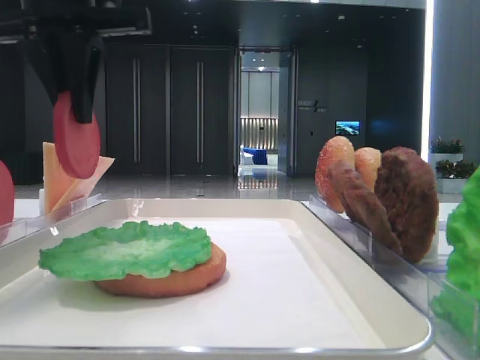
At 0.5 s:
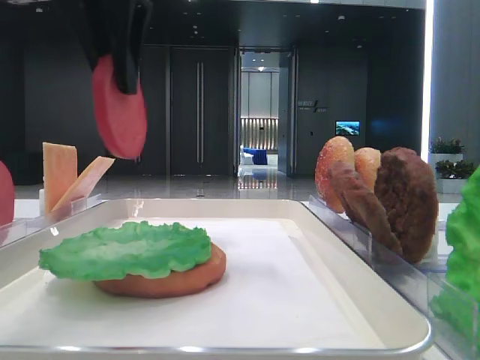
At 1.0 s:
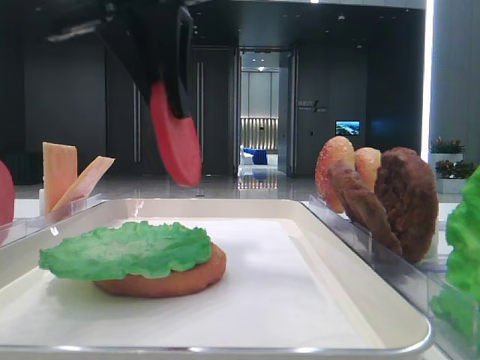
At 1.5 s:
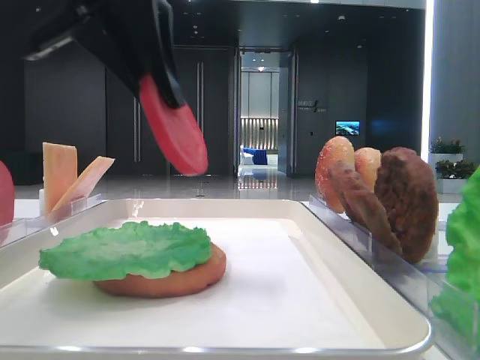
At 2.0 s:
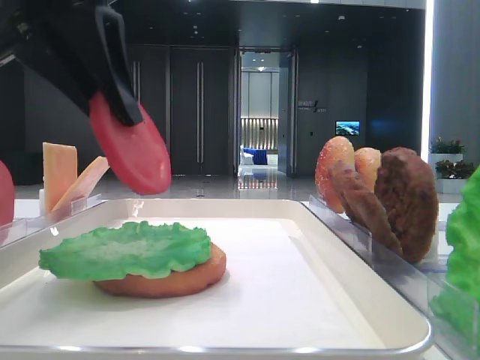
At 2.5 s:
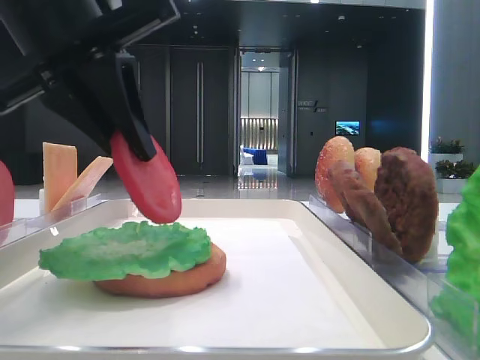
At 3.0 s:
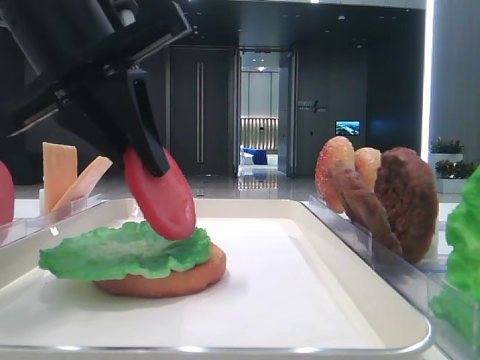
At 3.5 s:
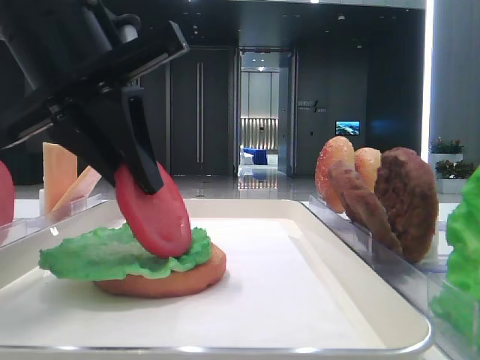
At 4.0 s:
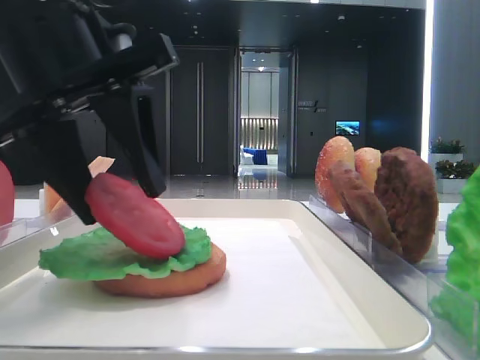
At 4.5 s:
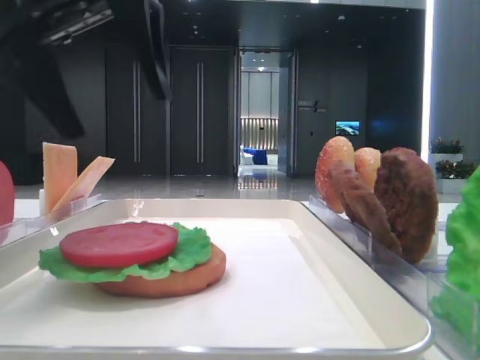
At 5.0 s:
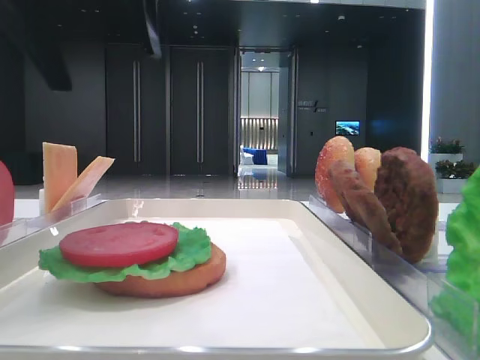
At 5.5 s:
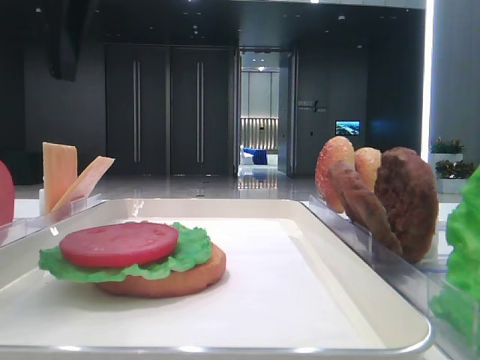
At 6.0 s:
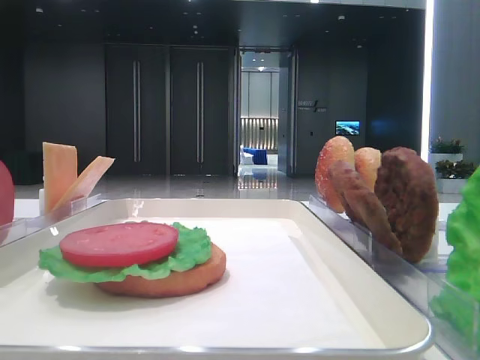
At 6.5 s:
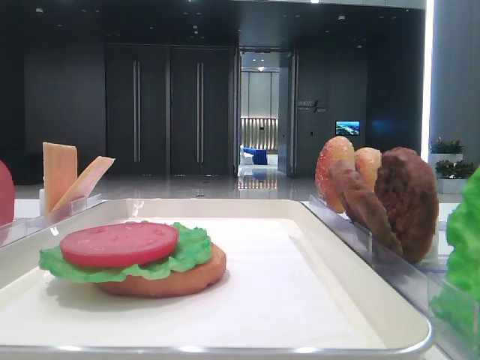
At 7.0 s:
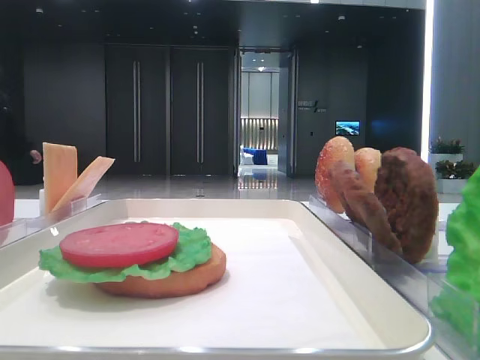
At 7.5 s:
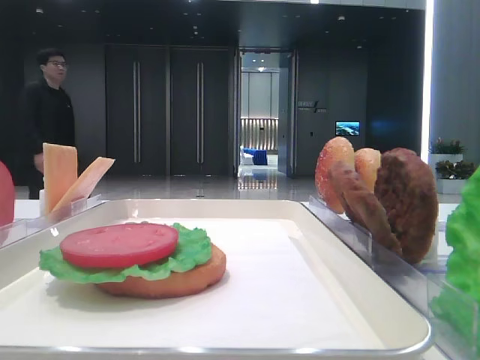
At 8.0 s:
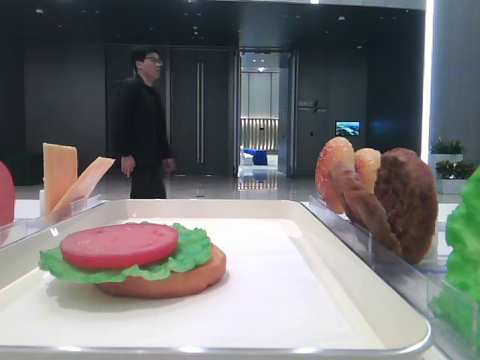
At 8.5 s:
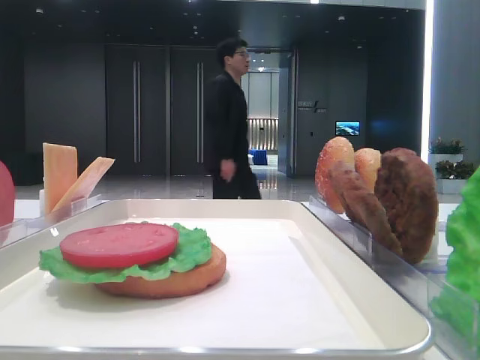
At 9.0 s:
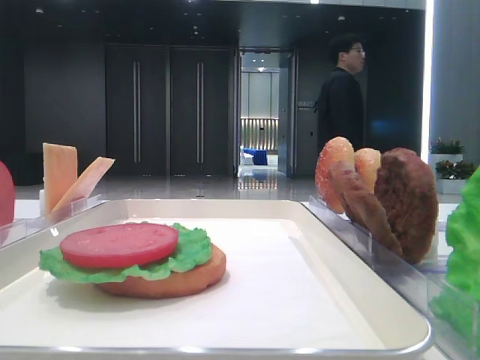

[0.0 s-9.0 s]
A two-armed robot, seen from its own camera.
Step, 0.0 to 4.0 s: Place the tomato slice on the lettuce leaf with the left hand.
0.0 to 2.0 s: The left gripper travels backward by about 10 cm.
2.0 to 4.5 s: The left gripper opens up.
4.5 to 7.0 s: The left gripper moves to the left and backward, roughly 25 cm.

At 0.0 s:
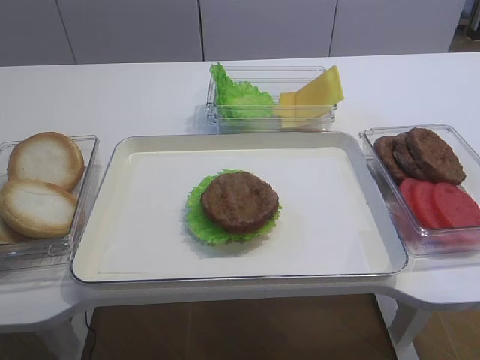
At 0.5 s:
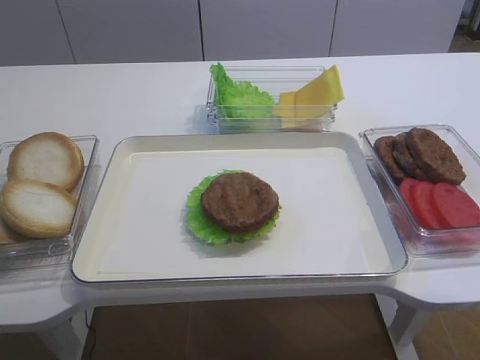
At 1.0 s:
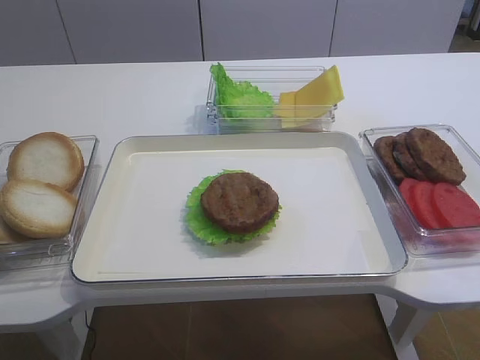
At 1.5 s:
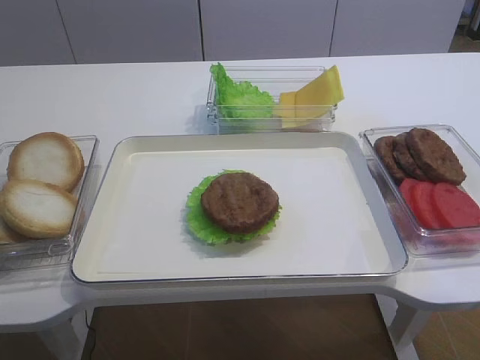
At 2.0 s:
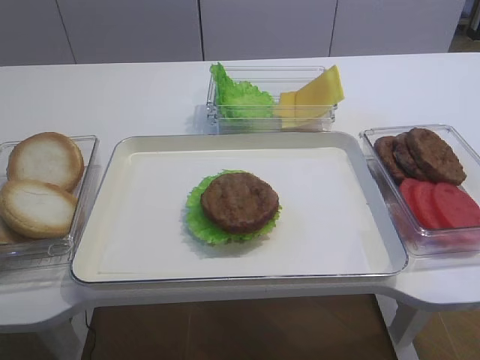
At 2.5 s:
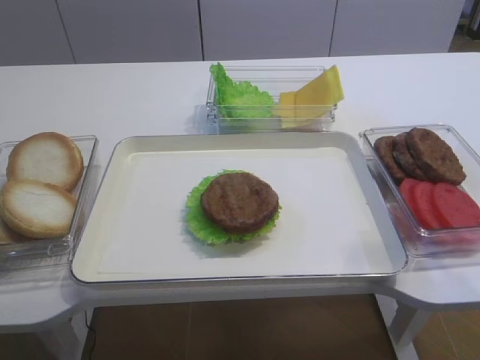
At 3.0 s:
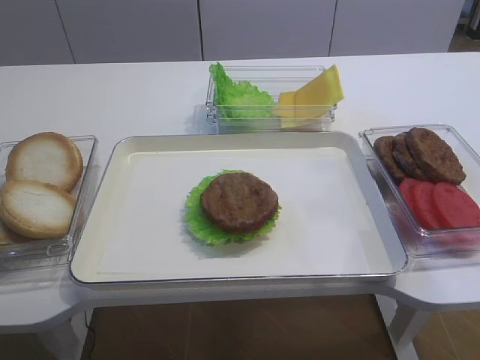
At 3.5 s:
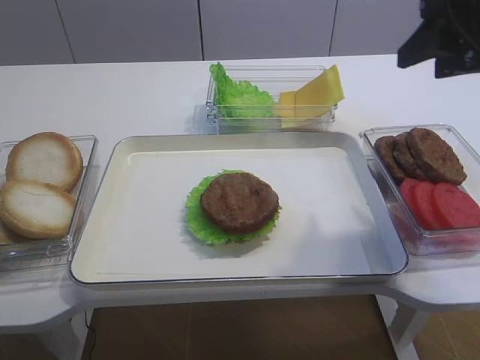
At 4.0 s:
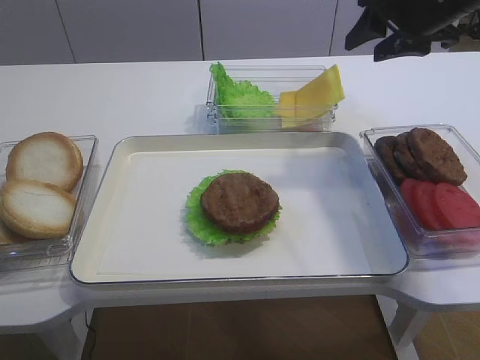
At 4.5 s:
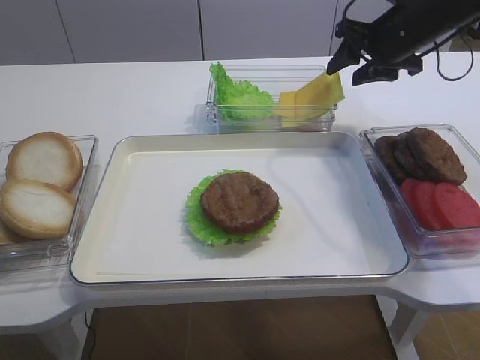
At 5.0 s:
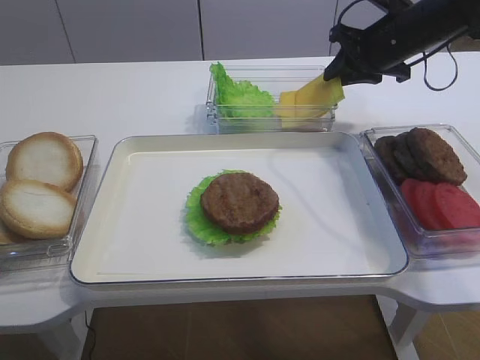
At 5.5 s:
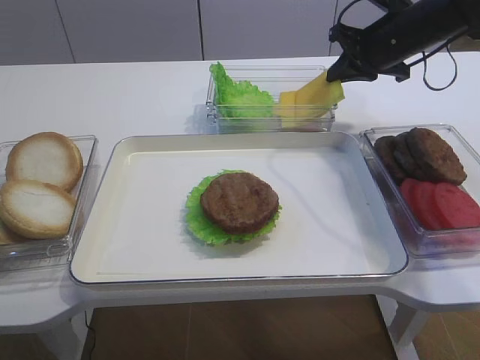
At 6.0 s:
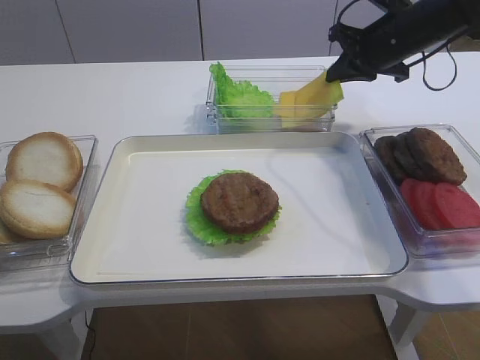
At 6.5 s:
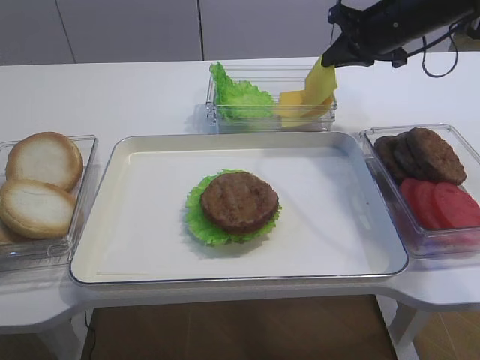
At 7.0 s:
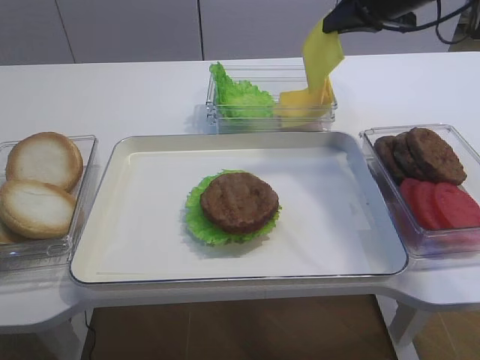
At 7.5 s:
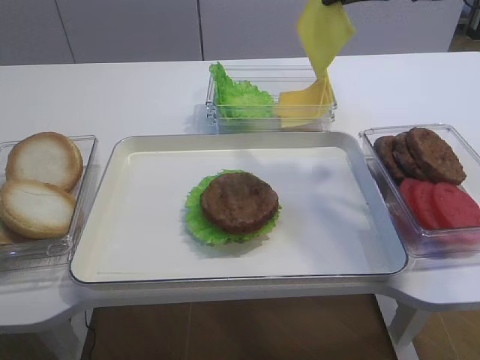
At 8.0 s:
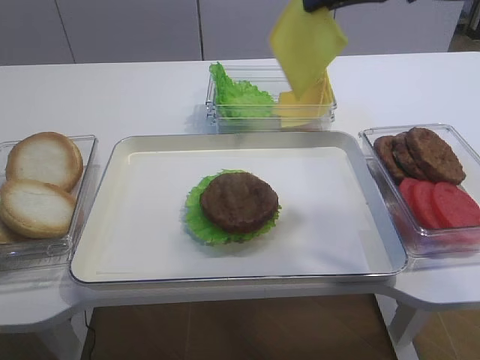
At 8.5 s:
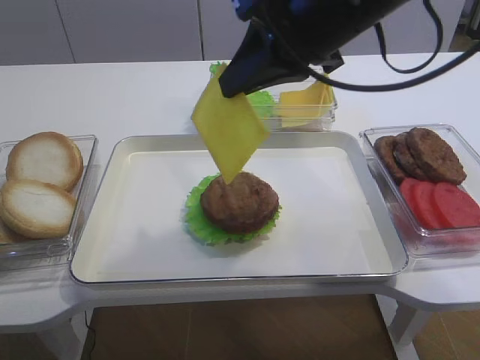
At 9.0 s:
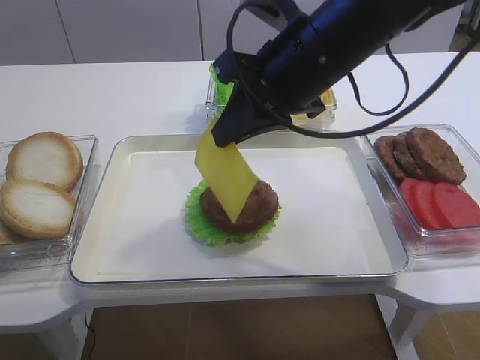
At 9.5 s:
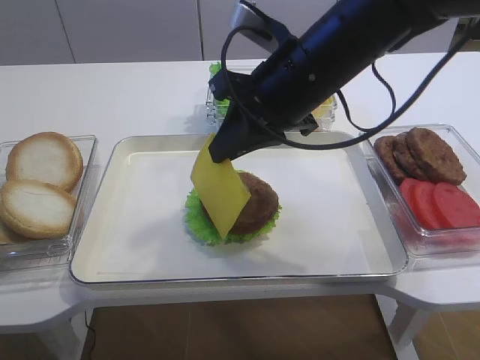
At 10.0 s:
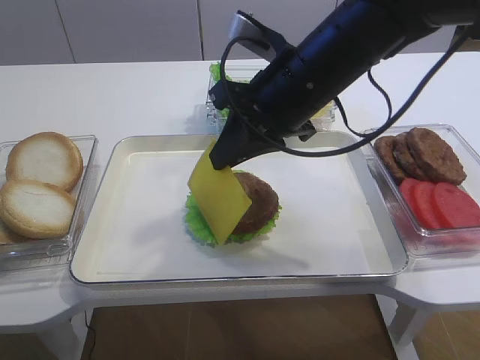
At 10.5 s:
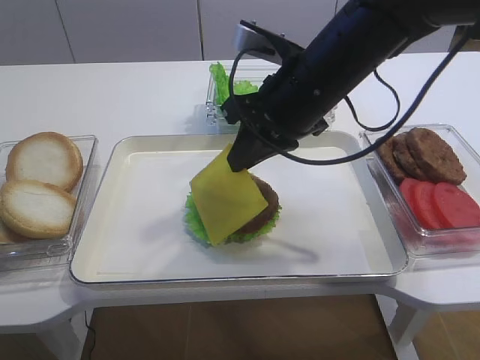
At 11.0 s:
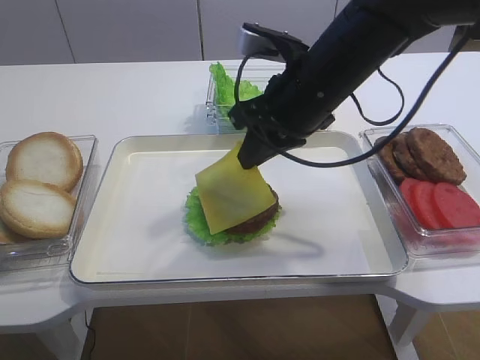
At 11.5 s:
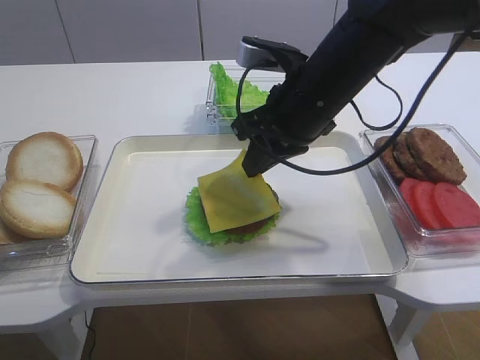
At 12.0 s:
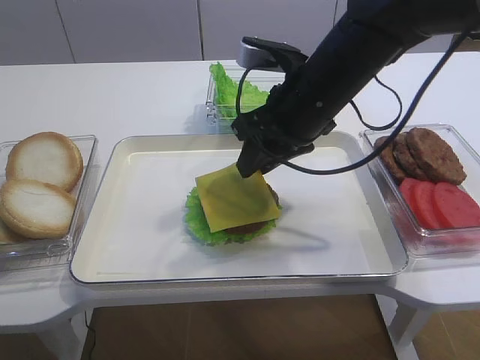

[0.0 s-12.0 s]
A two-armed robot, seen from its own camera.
Step, 0.0 to 6.0 s: Pick up the cheese slice with the right gripper.
2.0 to 4.0 s: The right gripper goes approximately 40 cm forward.
4.0 to 6.0 s: The right gripper moves forward and downward, roughly 10 cm, and closes.
6.0 to 8.0 s: The right gripper shifts some 20 cm upward and backward.
8.0 to 10.0 s: The right gripper moves downward and to the left, about 15 cm.
10.0 to 12.0 s: The right gripper opens its fingers.

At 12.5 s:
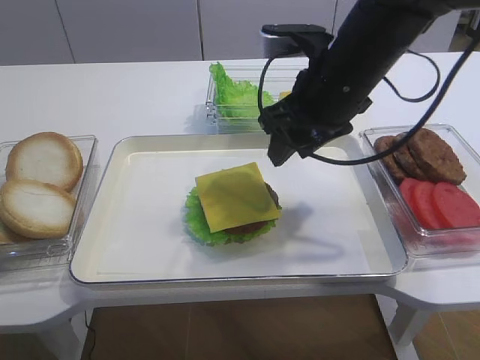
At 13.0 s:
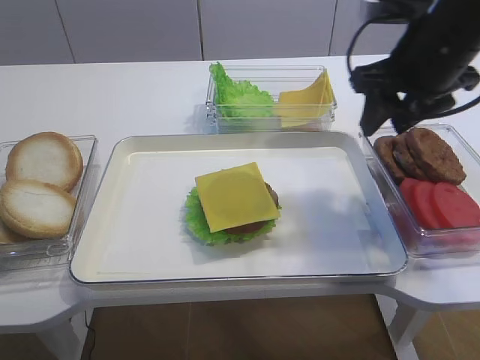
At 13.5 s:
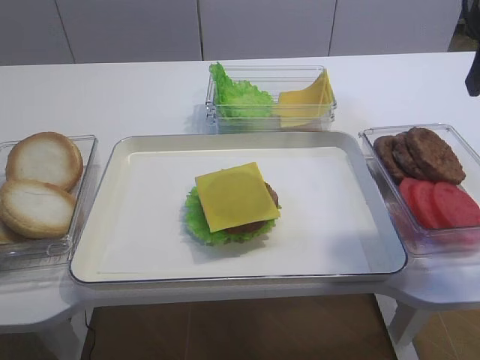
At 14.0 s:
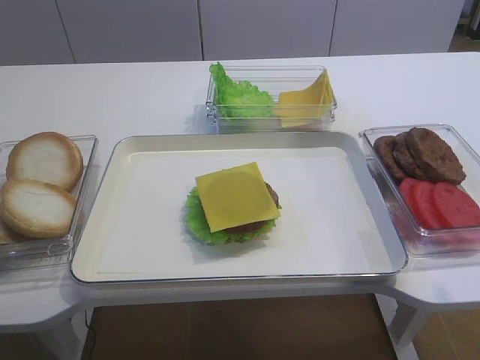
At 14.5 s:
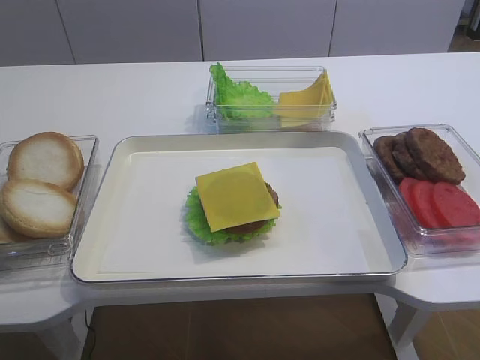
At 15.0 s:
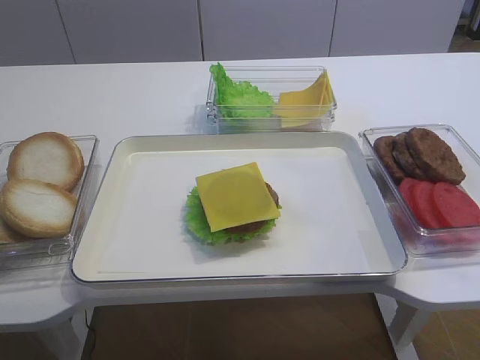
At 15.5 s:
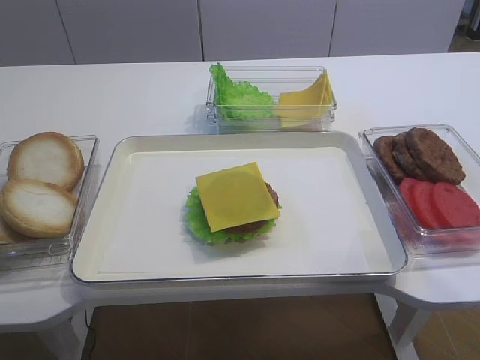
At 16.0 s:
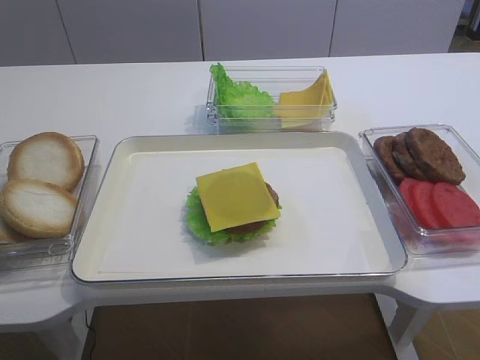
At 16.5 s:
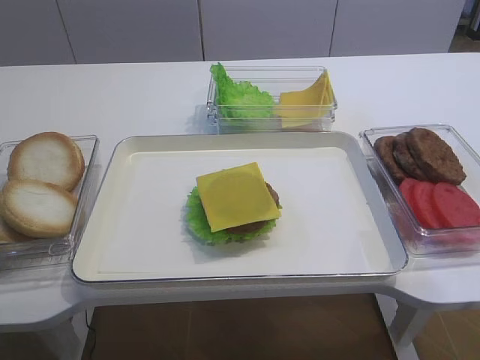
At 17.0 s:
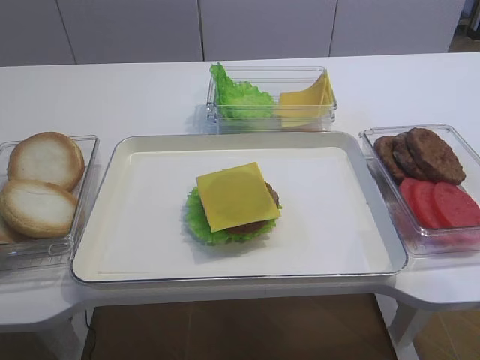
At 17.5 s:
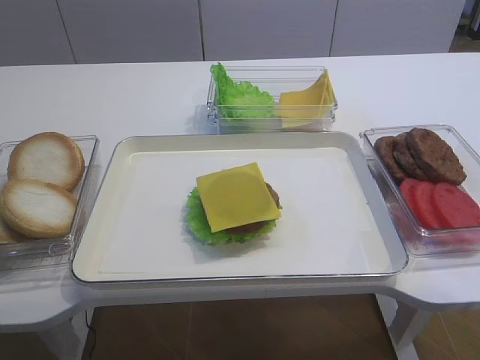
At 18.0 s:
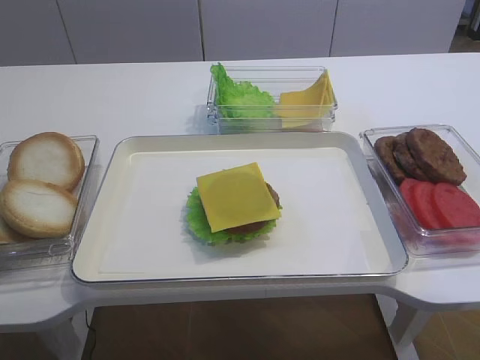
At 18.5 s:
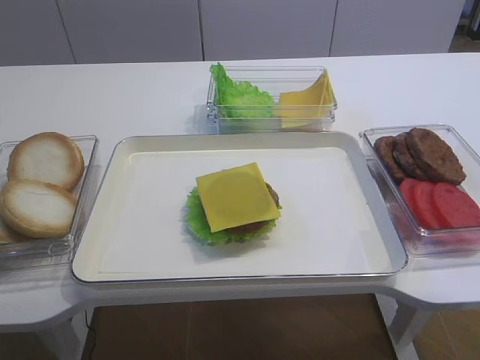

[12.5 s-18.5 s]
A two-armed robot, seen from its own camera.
12.5 to 14.5 s: The right gripper travels upward, backward and to the right by approximately 30 cm.
14.5 to 16.5 s: The right gripper shifts about 20 cm downward and backward.
